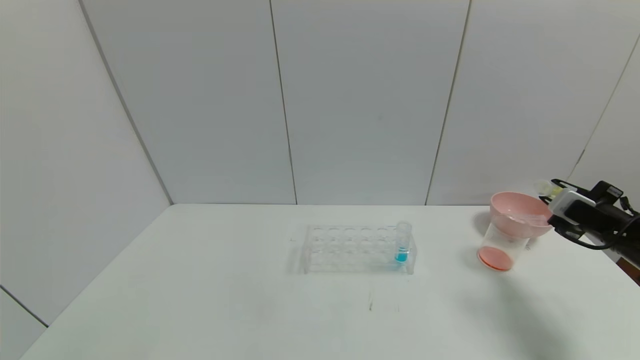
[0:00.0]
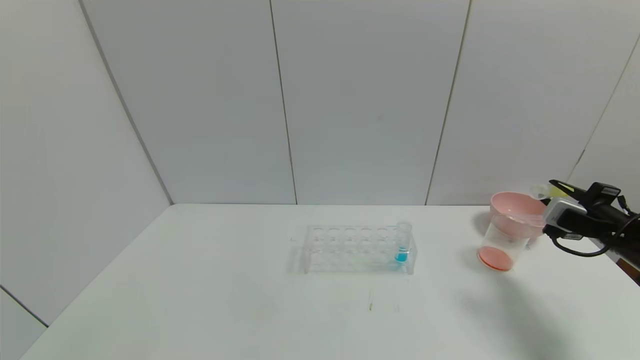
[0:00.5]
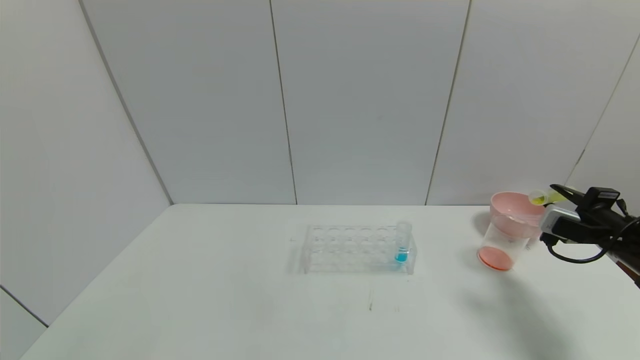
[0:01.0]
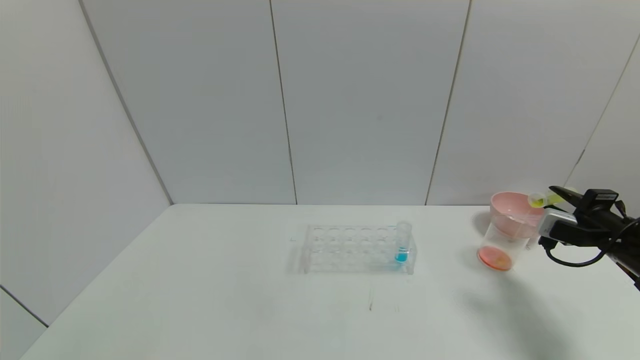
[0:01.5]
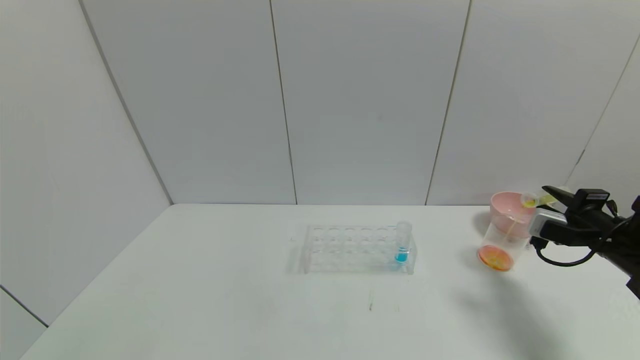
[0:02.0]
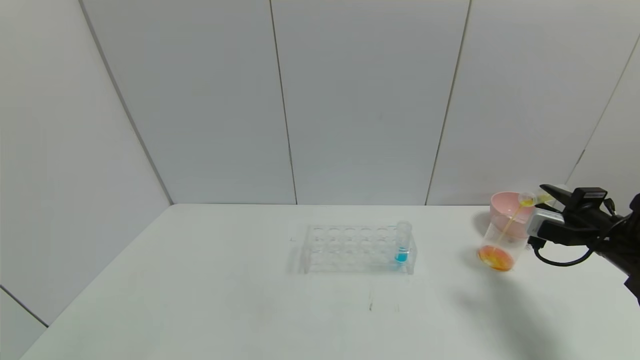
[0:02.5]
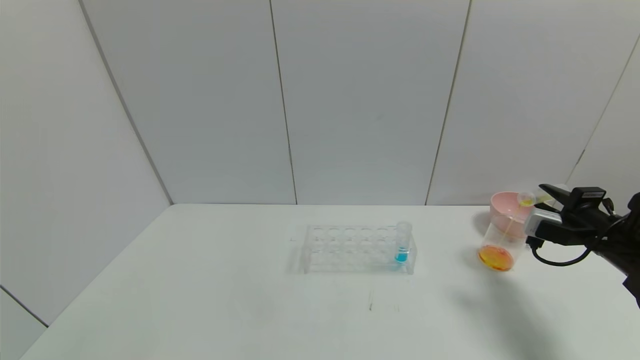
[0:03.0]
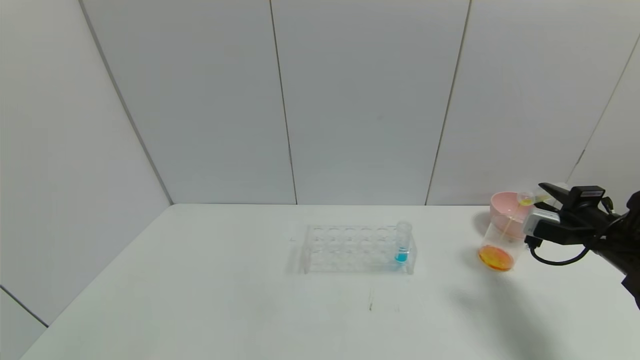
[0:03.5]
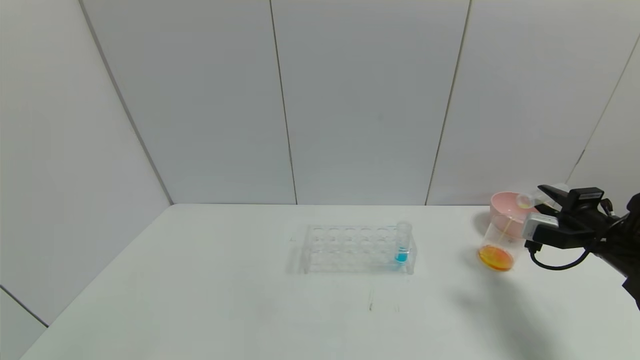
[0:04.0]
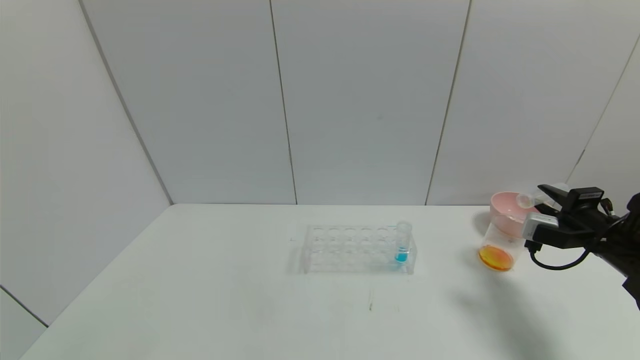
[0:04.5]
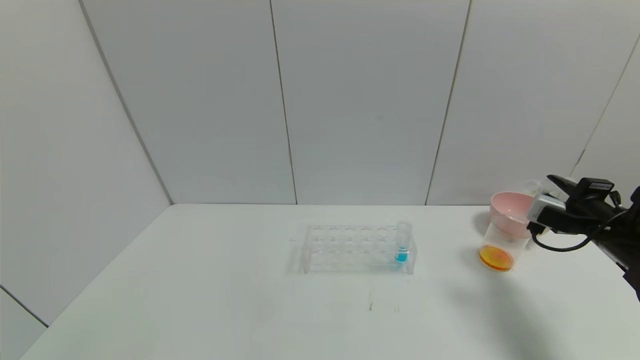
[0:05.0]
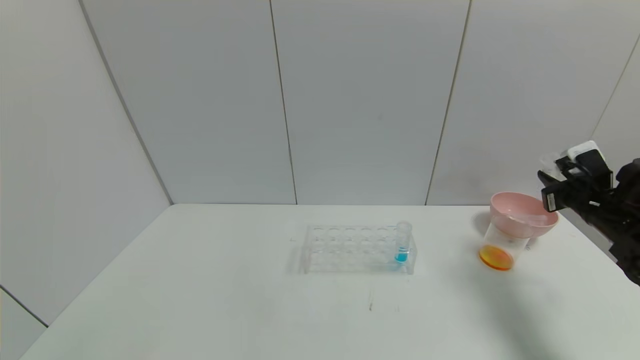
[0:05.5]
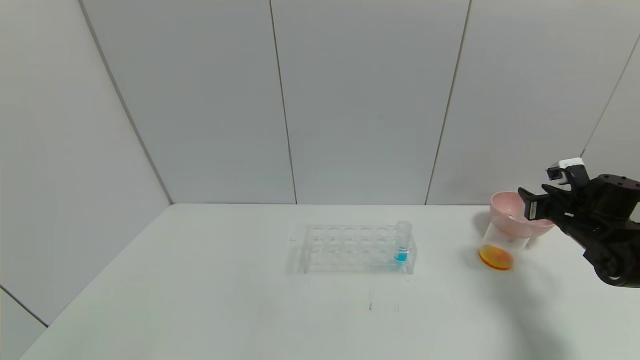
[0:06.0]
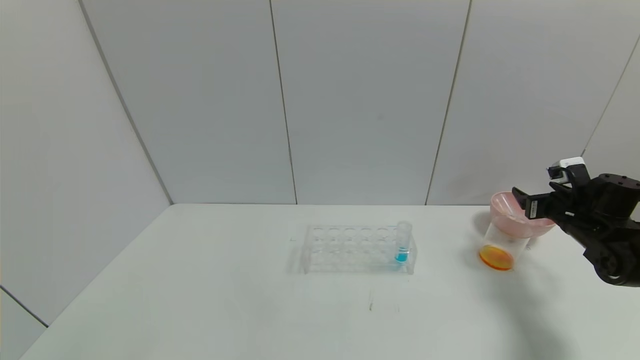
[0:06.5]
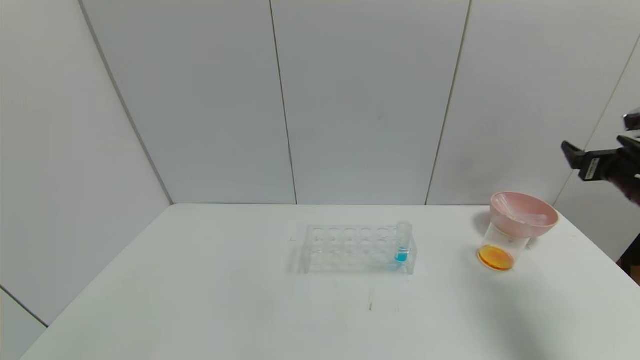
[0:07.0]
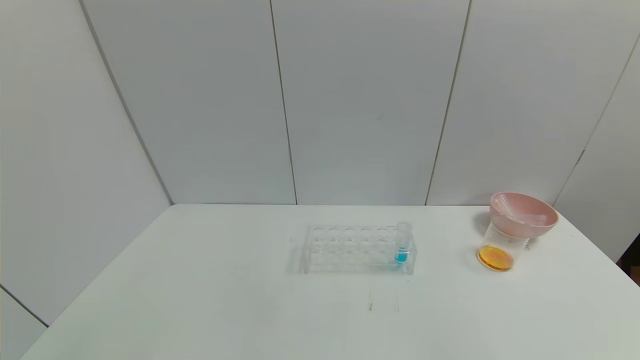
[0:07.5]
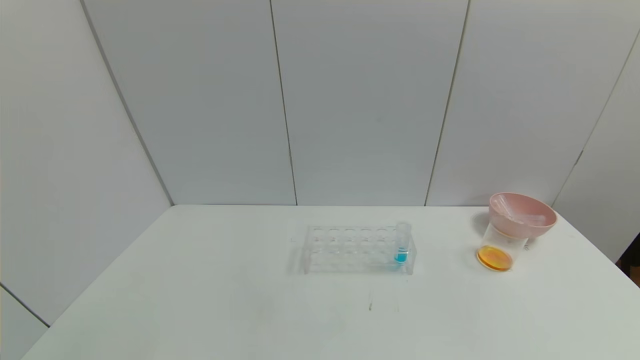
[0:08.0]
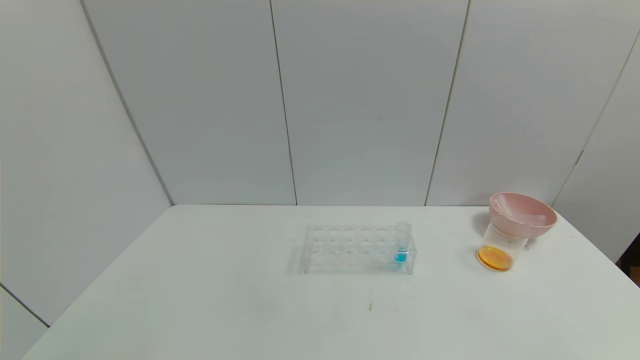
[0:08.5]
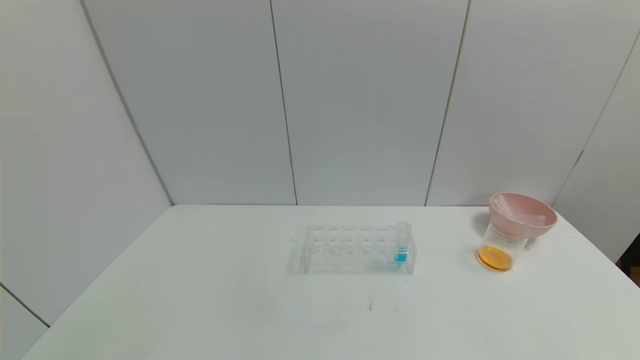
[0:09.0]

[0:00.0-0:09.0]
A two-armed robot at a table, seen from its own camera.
Task of the whole recording: pick up the test tube with yellow pigment and the test tube with red pigment by grippers and pour them into the beaker.
Step, 0:00.0 to 0:05.5: Pour the yellow reagent into the graduated cylinder with right gripper.
Step, 0:06.0 to 0:07.0: Place the test tube into the bowl with right gripper.
0:00.0 to 0:02.0: There are only small adjustments of the grippers.
0:02.0 to 0:04.5: The grippers stay close to where they were, moving slightly.
0:04.5 to 0:07.0: The right gripper moves upward, about 10 cm, and opens its fingers.
0:07.0 to 0:09.0: The right gripper travels backward by about 35 cm.
